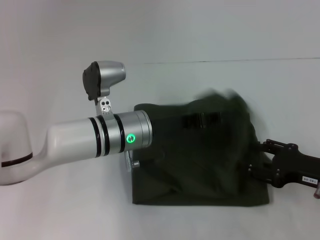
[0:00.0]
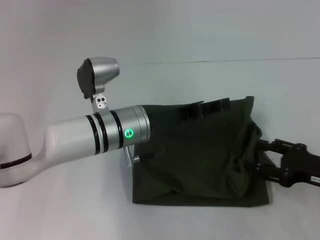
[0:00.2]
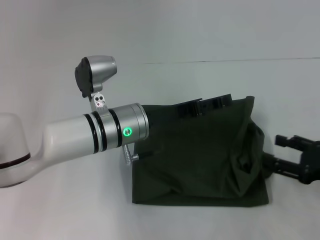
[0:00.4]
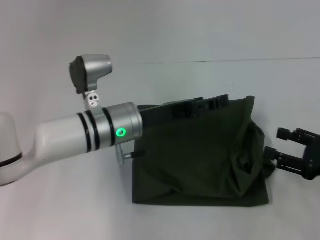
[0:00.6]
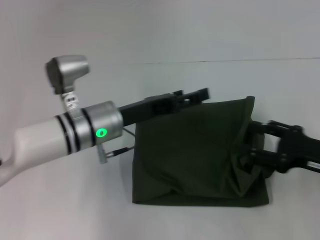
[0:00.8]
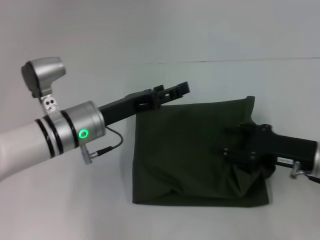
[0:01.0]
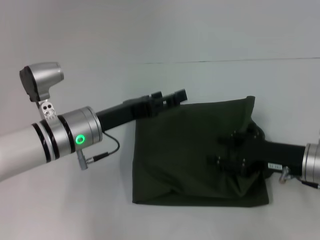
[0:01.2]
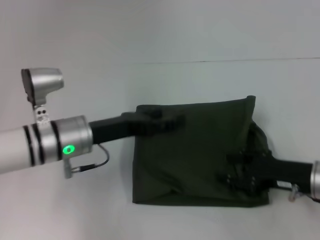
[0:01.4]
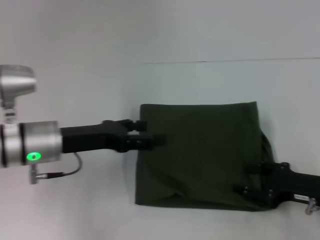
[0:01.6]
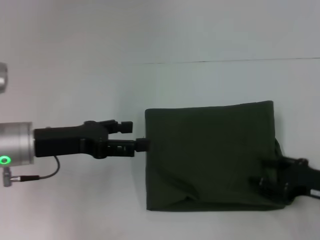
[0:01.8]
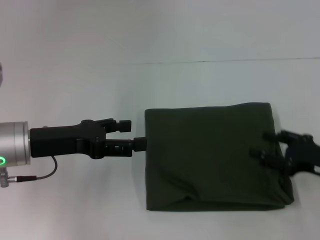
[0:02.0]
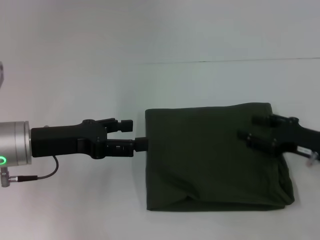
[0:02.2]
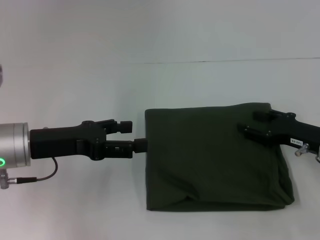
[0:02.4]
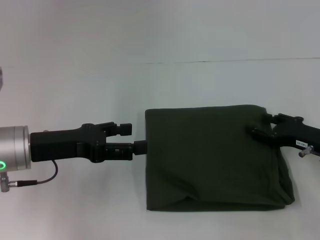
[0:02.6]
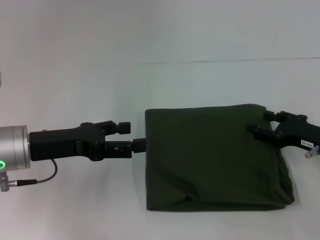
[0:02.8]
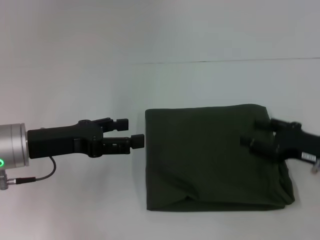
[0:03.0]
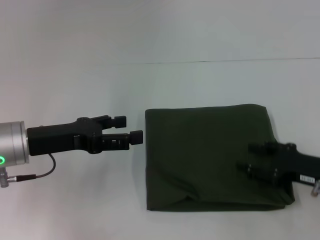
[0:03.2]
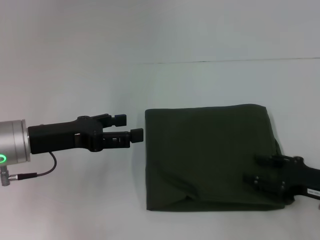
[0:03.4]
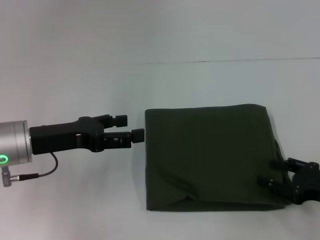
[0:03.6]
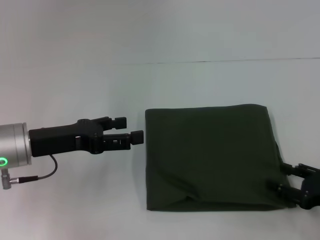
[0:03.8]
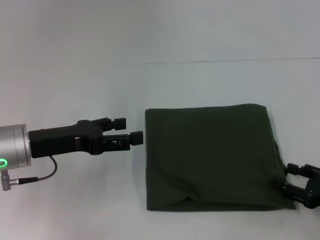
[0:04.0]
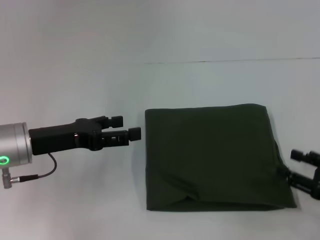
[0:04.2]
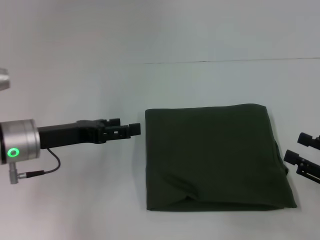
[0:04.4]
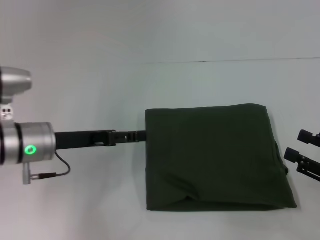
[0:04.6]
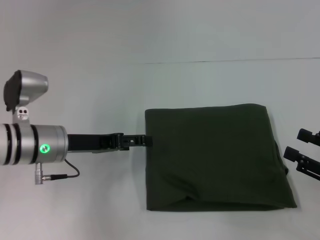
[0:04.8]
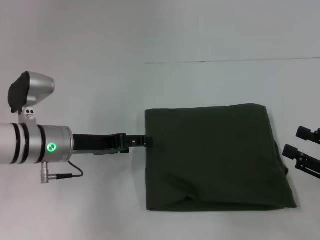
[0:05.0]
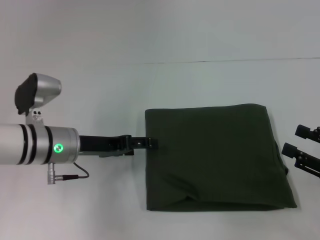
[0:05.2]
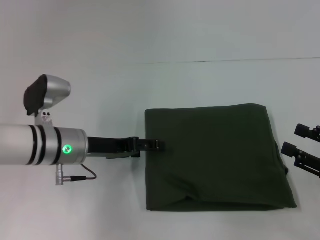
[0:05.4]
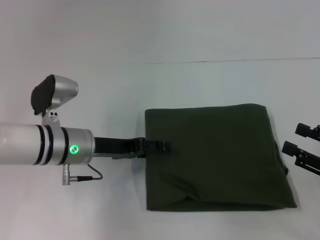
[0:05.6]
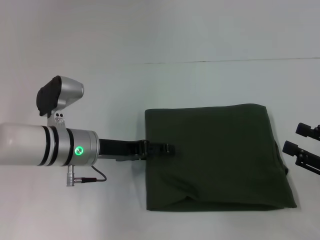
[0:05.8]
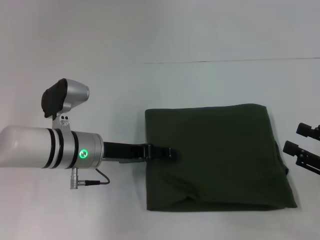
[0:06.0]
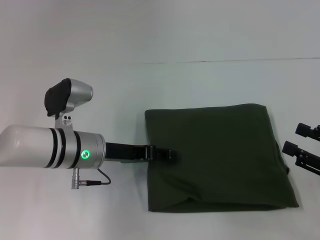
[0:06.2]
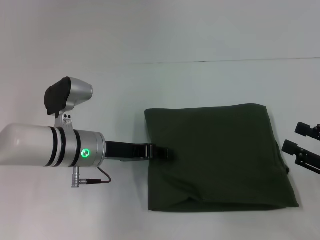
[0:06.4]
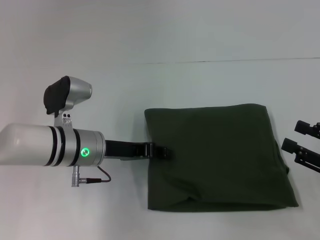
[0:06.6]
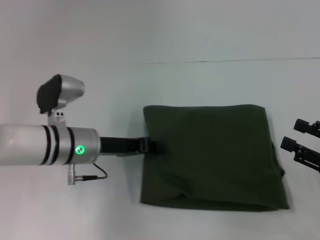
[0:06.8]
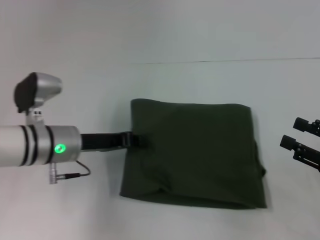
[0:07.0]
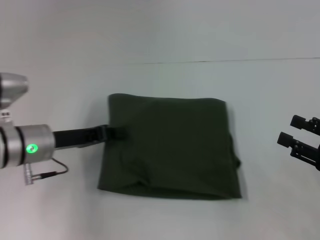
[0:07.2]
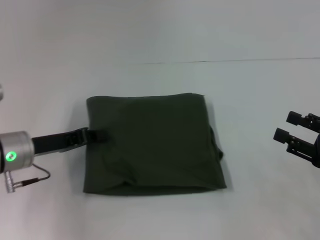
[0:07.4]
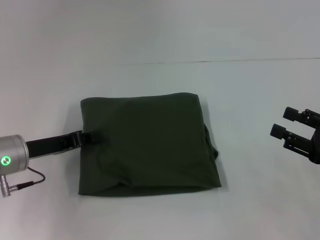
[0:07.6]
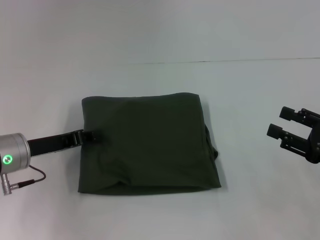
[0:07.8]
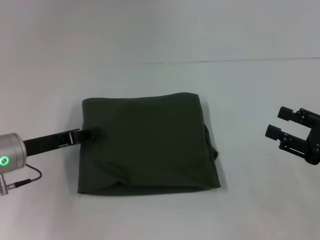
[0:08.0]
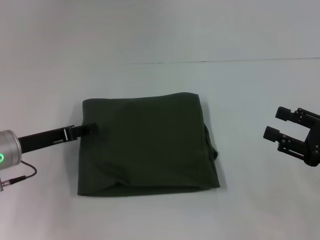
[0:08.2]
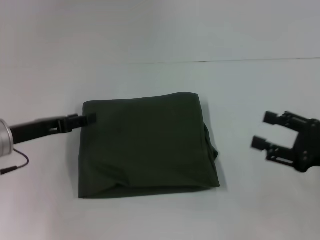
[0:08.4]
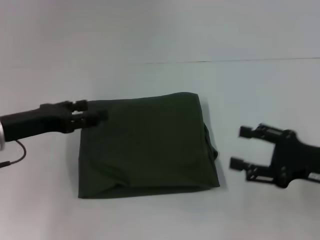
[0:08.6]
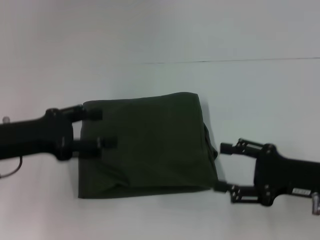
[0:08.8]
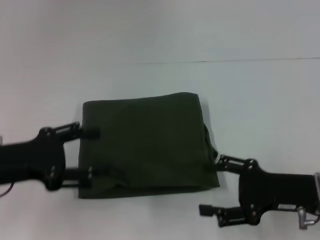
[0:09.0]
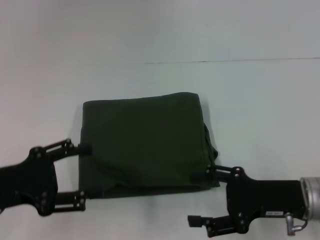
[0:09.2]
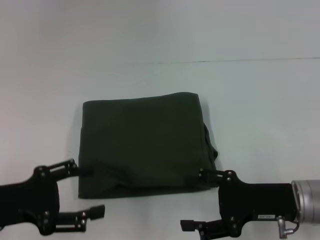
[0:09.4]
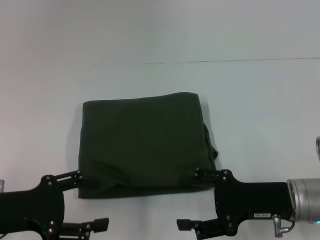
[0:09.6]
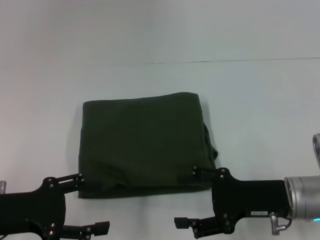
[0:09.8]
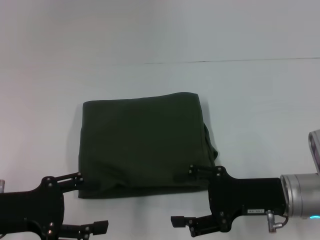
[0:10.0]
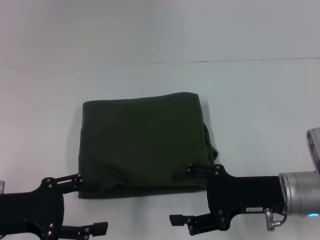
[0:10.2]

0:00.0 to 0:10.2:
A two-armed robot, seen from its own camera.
0:00.0 to 0:01.4: The left gripper moves to the left, approximately 10 cm, and opens its fingers.
0:01.4 to 0:03.0: The left gripper is displaced to the left by some 5 cm.
0:03.0 to 0:04.4: The right gripper shifts some 10 cm backward.
0:04.4 to 0:05.8: The left gripper heads to the right, covering approximately 5 cm.
0:05.8 to 0:07.2: The left gripper heads to the left, covering about 5 cm, and closes up.
0:07.2 to 0:08.8: The right gripper moves to the left, some 5 cm. Meanwhile the left gripper moves upward, to the left and backward, approximately 10 cm, and opens.
0:08.8 to 0:10.2: The left gripper moves backward, approximately 5 cm; the right gripper moves to the left, about 5 cm.

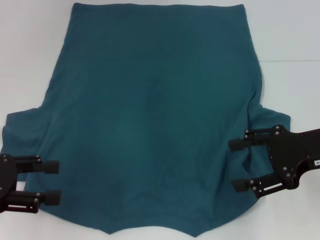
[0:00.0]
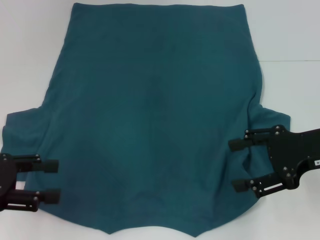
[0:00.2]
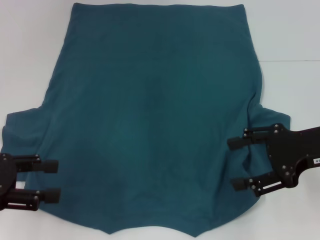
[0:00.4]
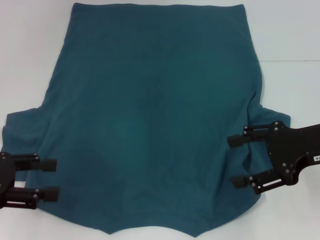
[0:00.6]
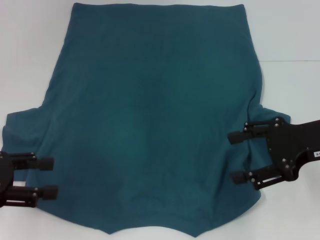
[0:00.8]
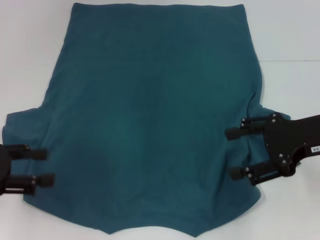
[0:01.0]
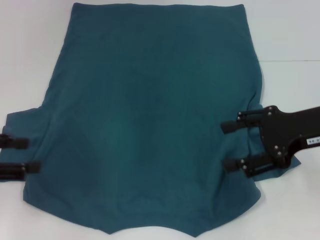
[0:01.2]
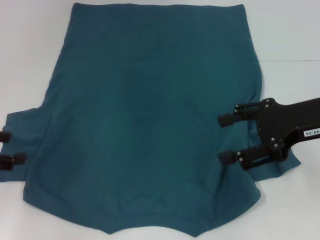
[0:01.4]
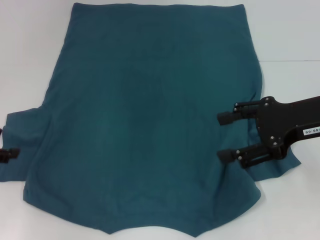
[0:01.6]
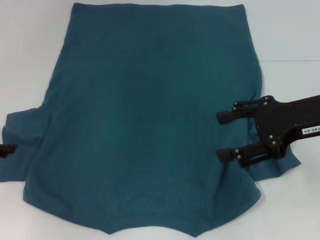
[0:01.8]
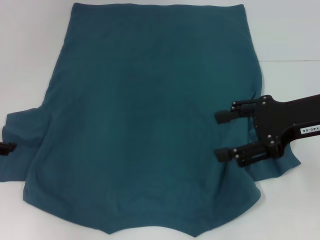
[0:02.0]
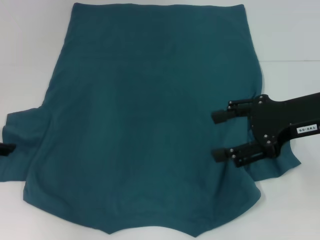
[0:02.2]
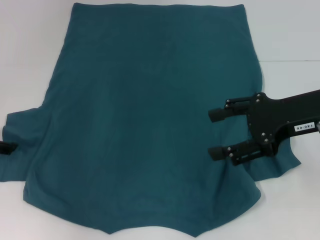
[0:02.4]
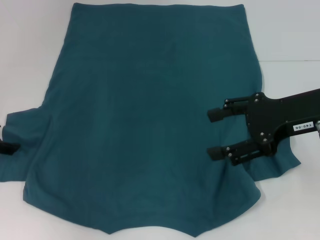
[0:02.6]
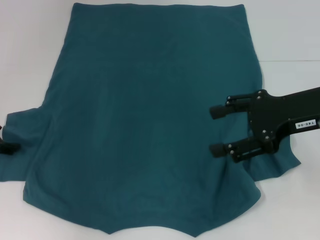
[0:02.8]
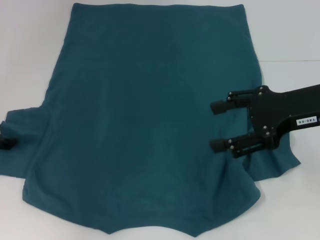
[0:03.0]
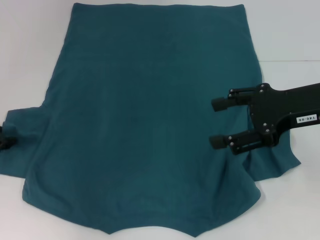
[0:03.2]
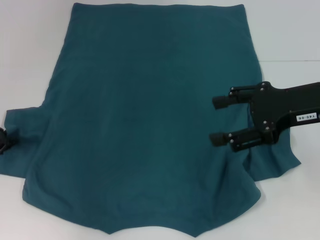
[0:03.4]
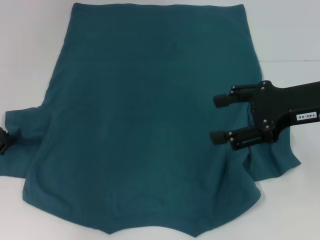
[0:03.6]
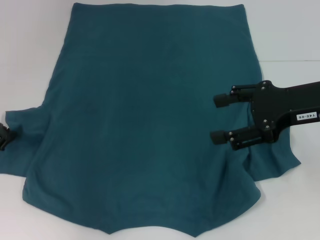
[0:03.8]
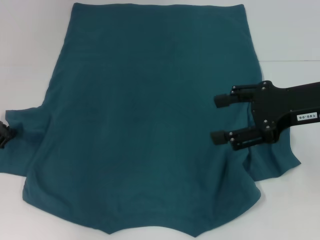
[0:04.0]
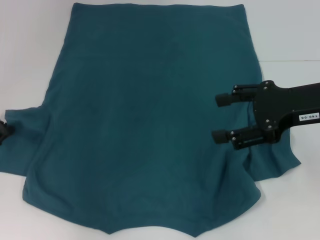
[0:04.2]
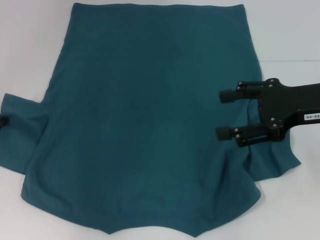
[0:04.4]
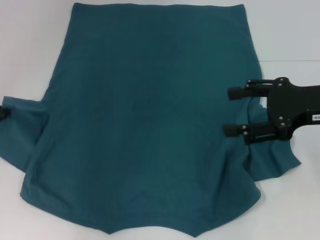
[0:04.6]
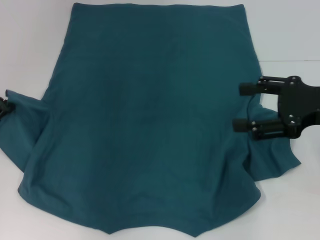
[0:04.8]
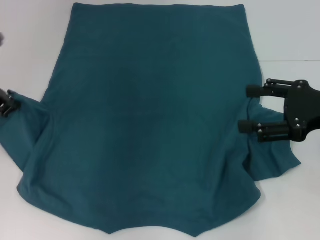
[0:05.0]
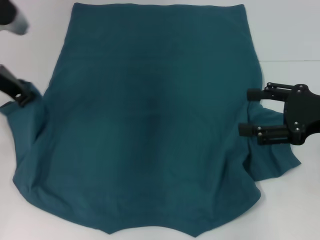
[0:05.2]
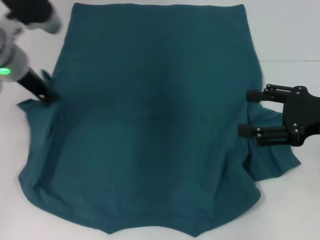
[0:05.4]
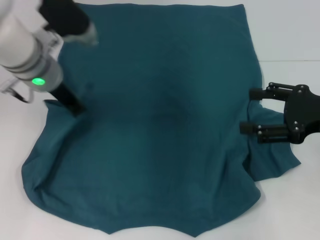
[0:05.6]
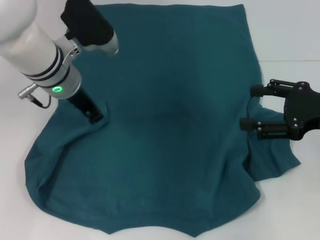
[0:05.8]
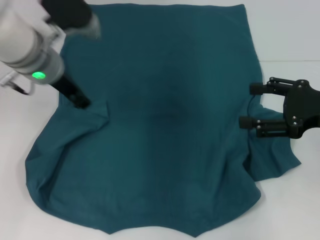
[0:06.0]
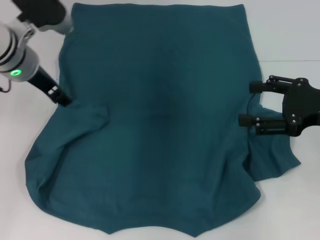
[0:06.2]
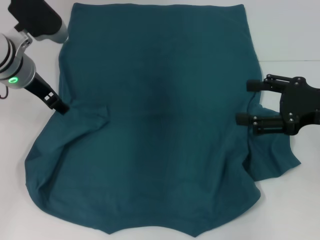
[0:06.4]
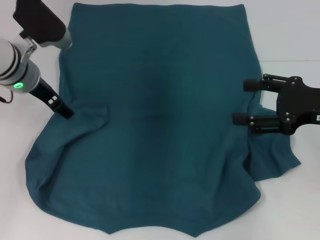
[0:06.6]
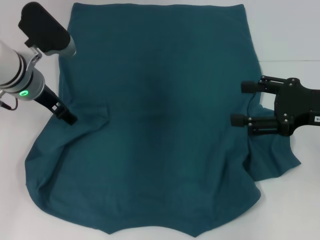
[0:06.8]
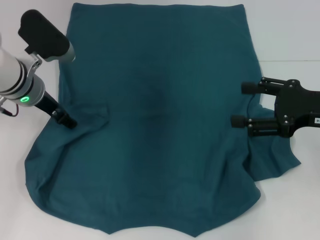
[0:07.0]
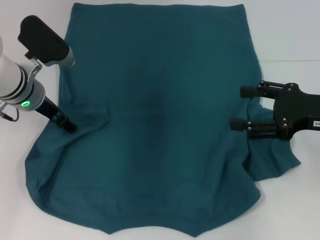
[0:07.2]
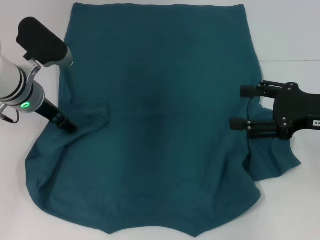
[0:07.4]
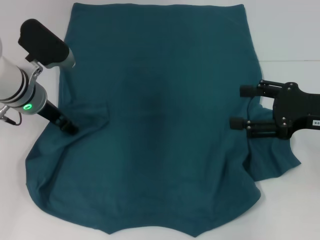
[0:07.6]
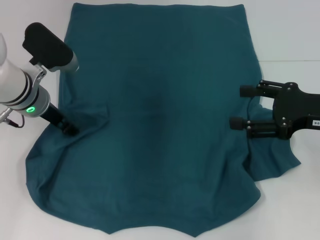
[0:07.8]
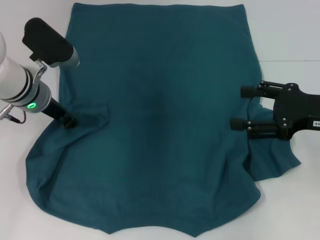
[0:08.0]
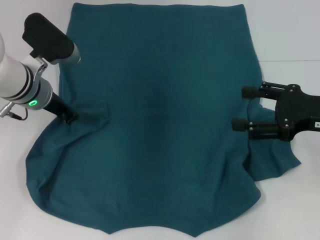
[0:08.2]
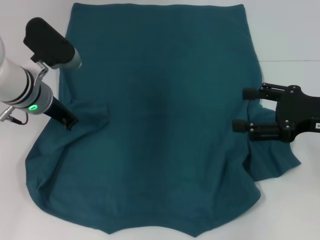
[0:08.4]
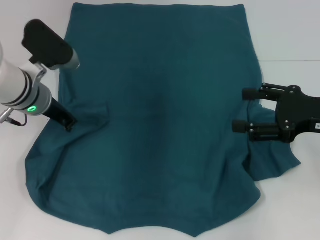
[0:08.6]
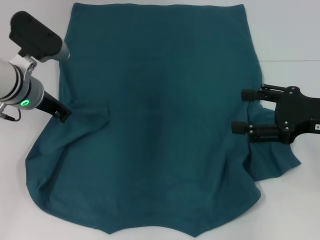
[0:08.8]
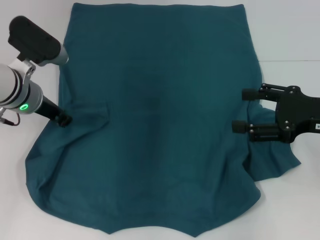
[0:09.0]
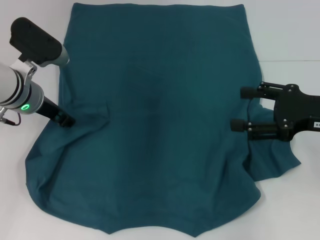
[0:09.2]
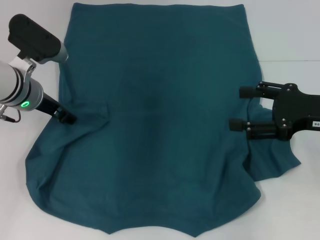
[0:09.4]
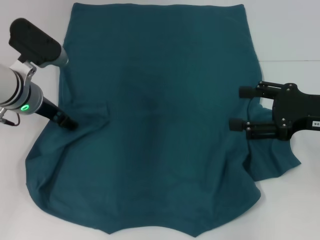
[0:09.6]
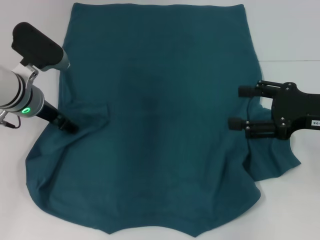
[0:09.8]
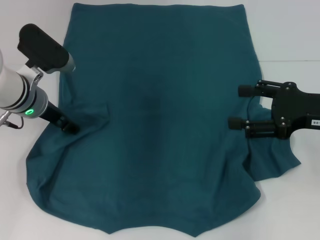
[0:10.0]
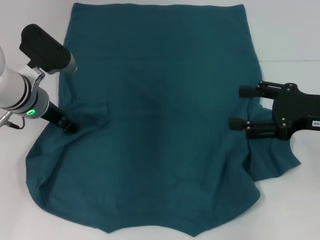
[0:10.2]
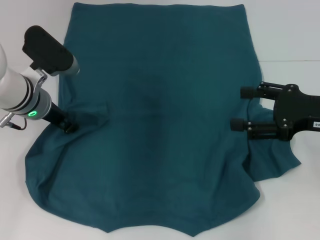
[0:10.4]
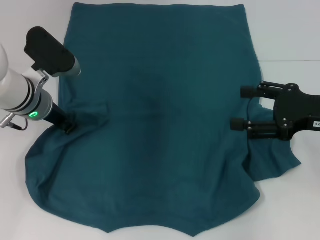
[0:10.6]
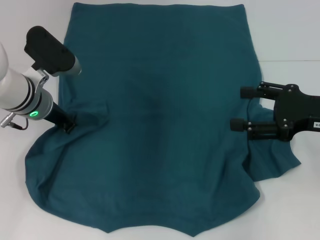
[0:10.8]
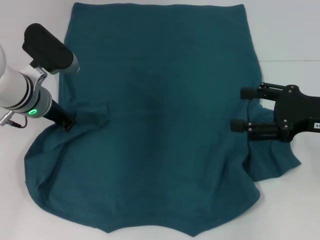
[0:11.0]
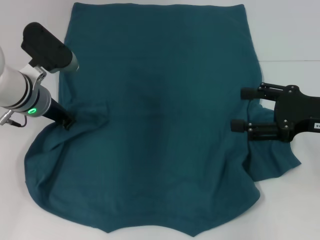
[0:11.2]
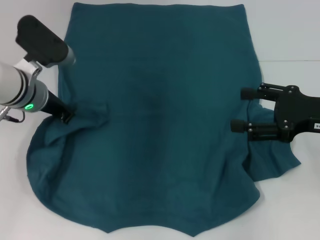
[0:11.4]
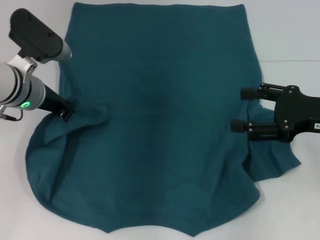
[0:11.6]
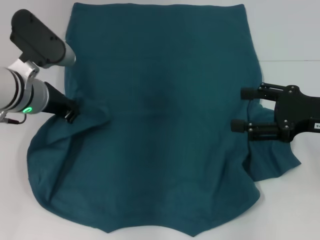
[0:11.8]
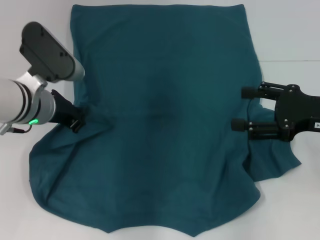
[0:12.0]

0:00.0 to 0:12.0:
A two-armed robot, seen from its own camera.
0:00.0 to 0:01.6: The left gripper moves forward, approximately 5 cm.
0:01.6 to 0:03.0: The left gripper heads forward, covering approximately 5 cm.
0:03.0 to 0:04.4: The left gripper closes its fingers.
0:04.4 to 0:06.0: The left gripper heads to the right, covering approximately 15 cm. Meanwhile the right gripper ends up some 5 cm from where it was.
0:06.0 to 0:07.6: The left gripper is displaced downward by roughly 5 cm, and opens.
0:07.6 to 0:09.0: The left gripper closes up.
0:09.0 to 0:10.4: The left gripper opens up.
0:10.4 to 0:12.0: The left gripper shifts by roughly 5 cm, and closes up.
